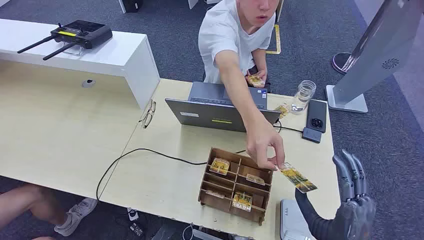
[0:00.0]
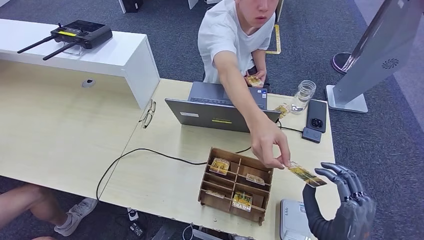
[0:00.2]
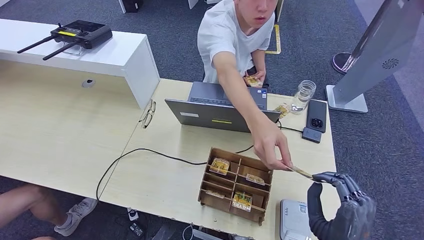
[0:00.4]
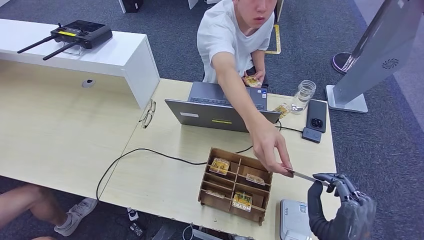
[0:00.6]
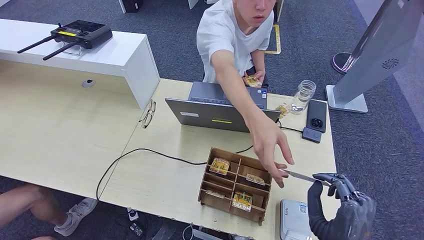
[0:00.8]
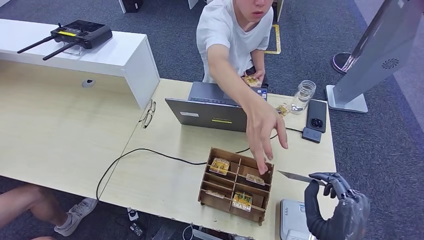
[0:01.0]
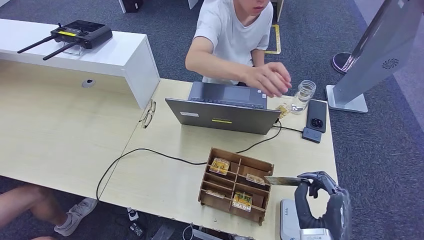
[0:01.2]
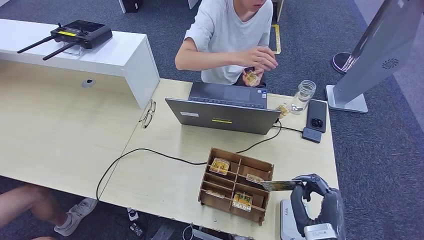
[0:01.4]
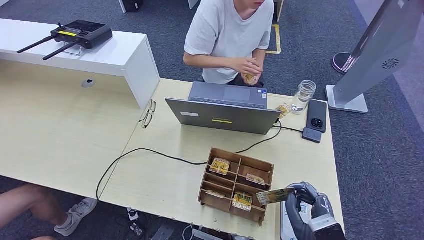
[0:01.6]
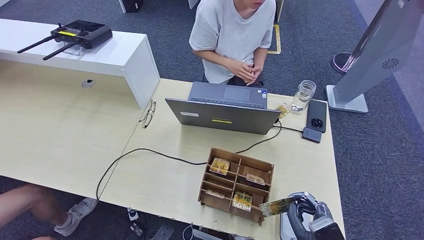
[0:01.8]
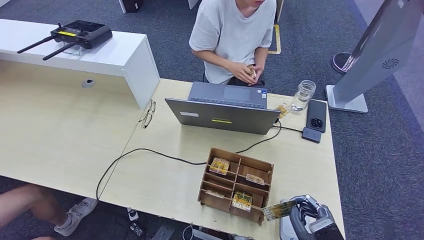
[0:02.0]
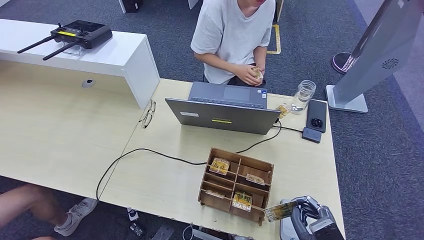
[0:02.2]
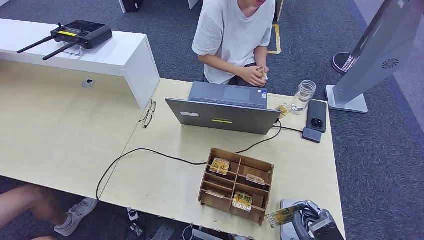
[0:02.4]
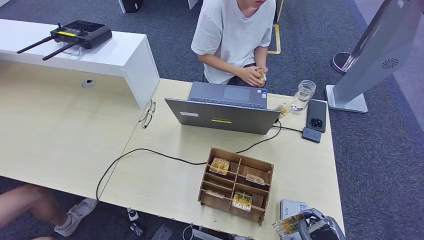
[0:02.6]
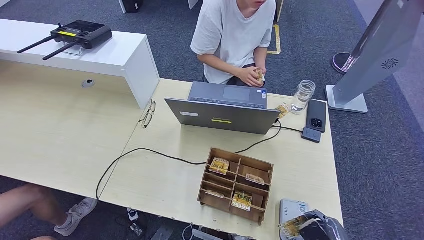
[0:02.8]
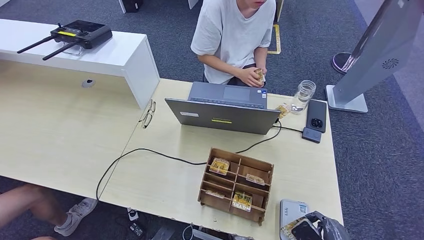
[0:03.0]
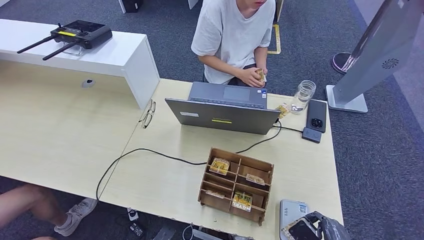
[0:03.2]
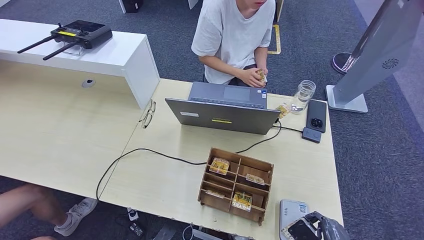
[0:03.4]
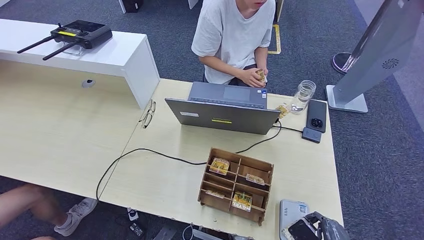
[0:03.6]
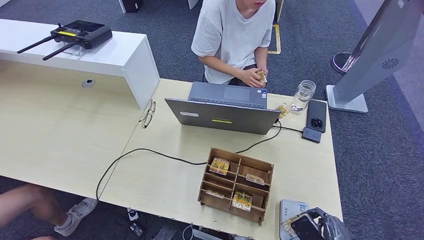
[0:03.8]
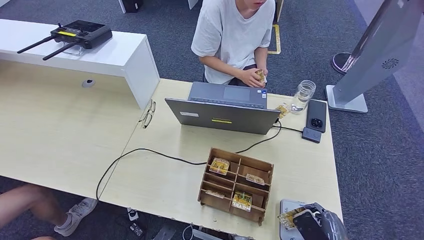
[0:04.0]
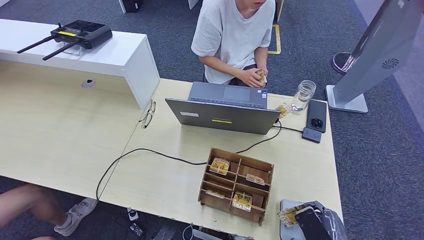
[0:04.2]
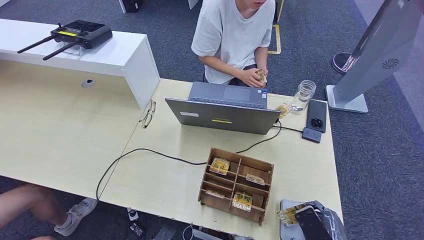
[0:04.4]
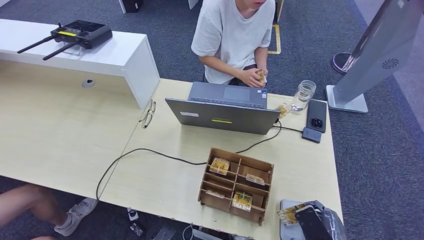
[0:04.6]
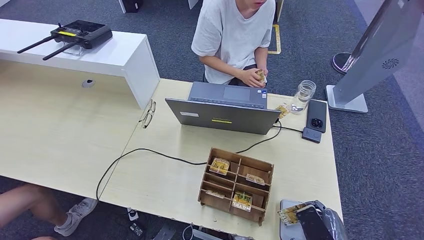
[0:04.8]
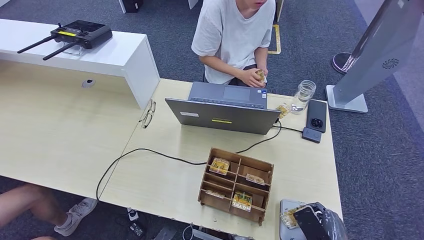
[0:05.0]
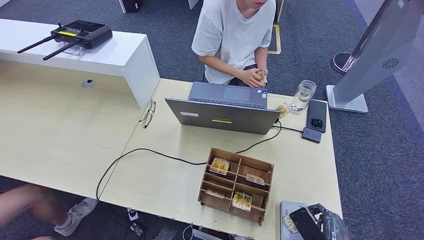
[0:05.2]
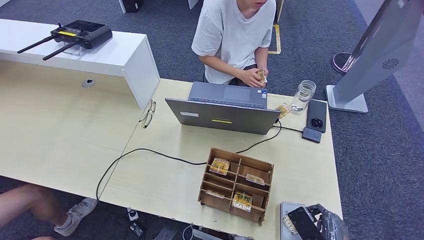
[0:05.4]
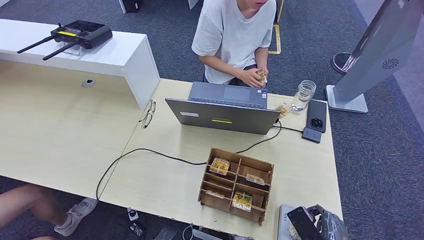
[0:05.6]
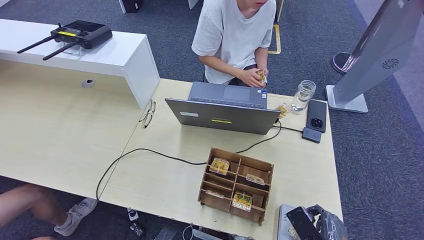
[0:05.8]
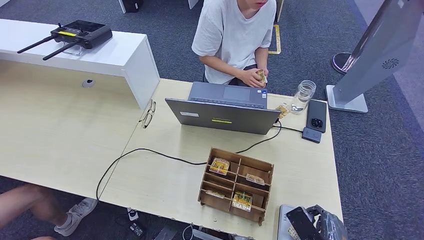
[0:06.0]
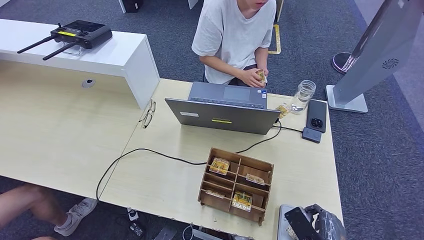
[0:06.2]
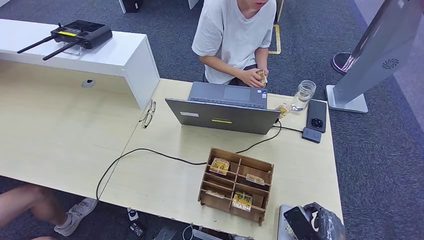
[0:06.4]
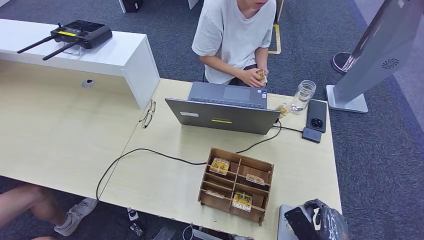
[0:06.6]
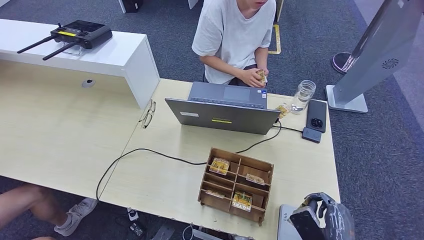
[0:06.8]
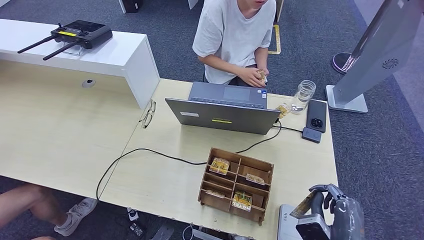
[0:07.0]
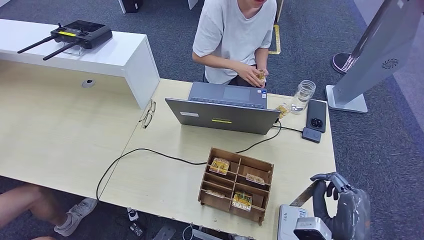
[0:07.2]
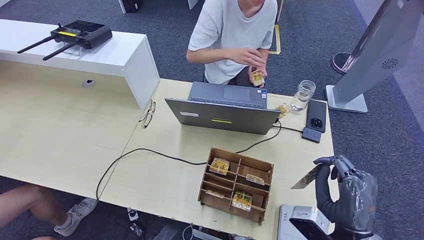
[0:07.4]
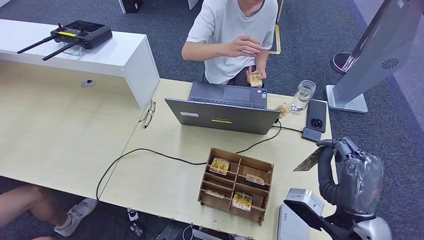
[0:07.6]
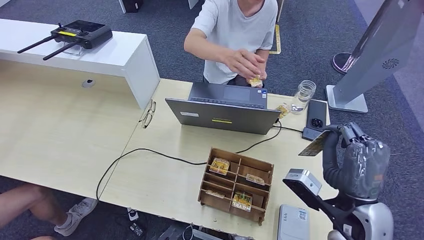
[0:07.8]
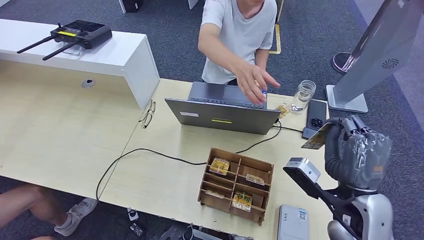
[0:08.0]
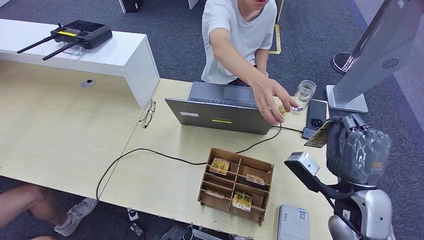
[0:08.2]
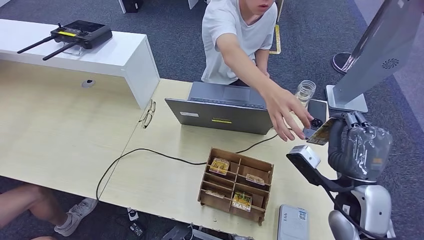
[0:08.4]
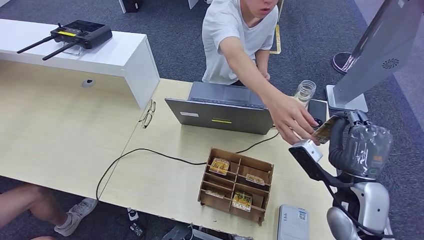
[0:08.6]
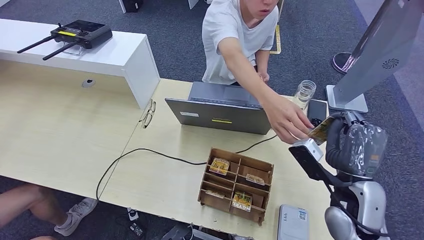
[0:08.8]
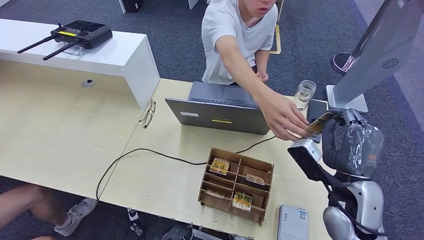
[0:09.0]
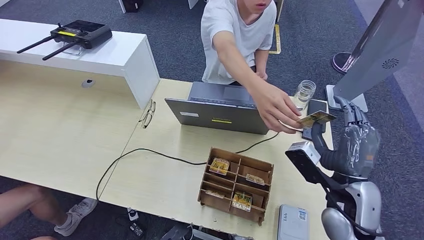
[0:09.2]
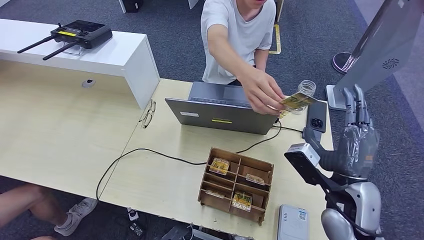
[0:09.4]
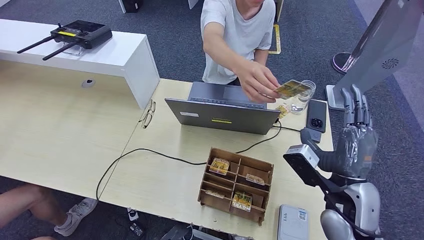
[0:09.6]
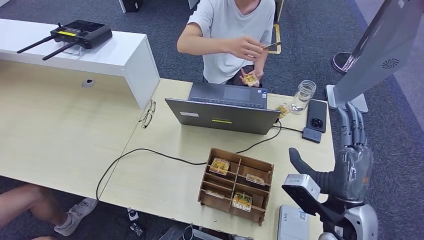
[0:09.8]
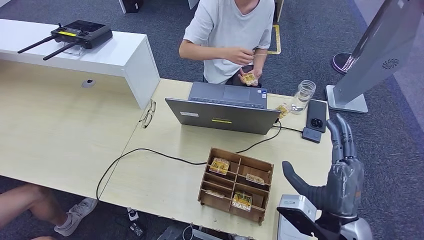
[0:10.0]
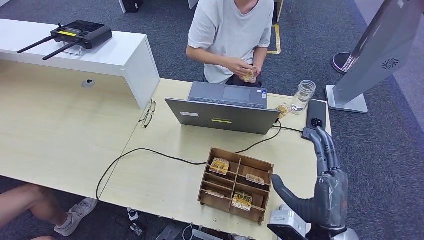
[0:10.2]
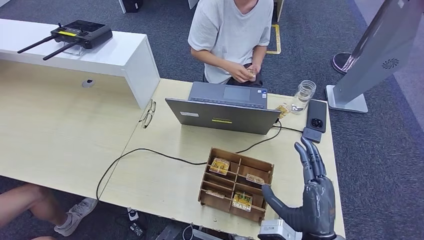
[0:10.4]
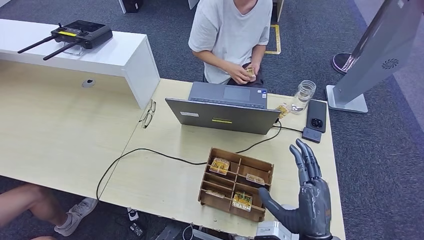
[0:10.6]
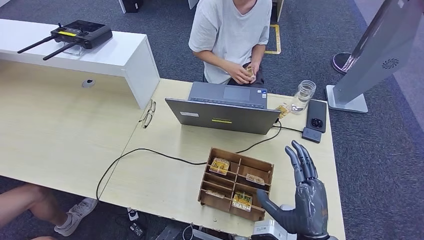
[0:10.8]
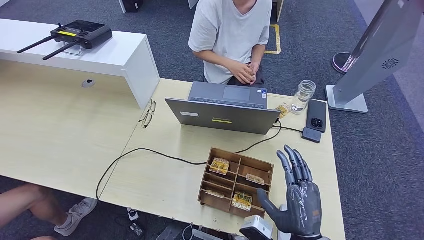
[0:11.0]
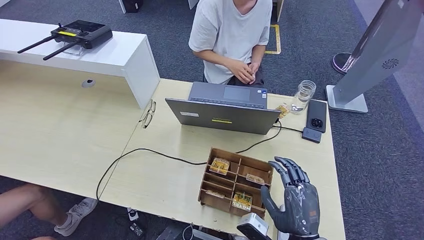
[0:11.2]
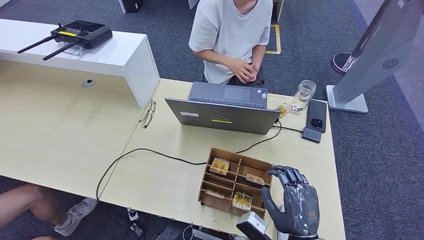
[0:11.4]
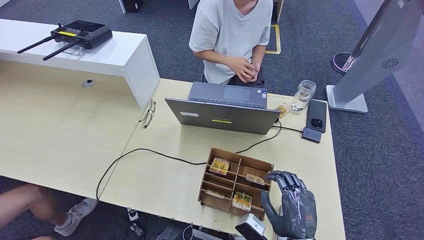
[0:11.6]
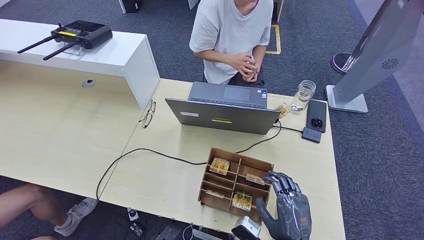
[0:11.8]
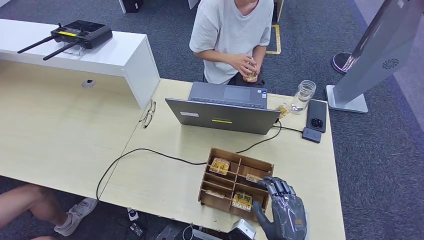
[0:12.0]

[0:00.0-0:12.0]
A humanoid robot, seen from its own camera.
Step, 0:00.0 to 0:01.4: Take the ID card from the person's hand.
Step, 0:01.6 to 0:07.4: Place the ID card on the card reader.
Step, 0:07.6 to 0:09.8: Hand the ID card to the person.
0:01.6 to 0:03.0: The right hand travels to the right by about 5 cm.
0:03.0 to 0:06.0: There are only small adjustments of the hands.
0:06.0 to 0:07.6: The right hand moves upward and forward, approximately 15 cm.
0:07.6 to 0:09.0: The right hand moves forward, approximately 5 cm.
0:09.0 to 0:10.4: The right hand moves backward and to the left, approximately 15 cm.
0:10.4 to 0:12.0: The right hand is displaced downward by about 5 cm.

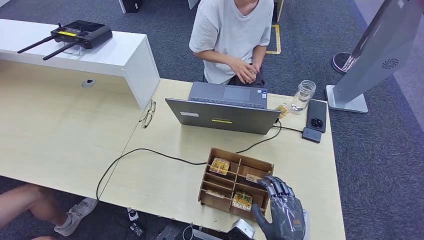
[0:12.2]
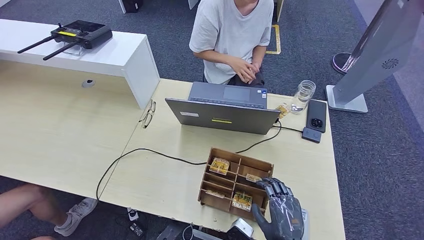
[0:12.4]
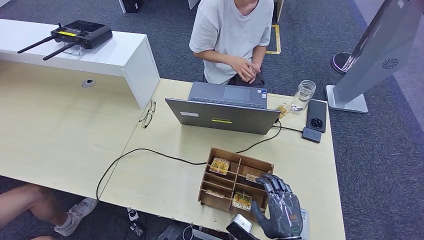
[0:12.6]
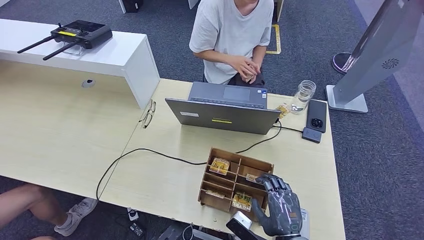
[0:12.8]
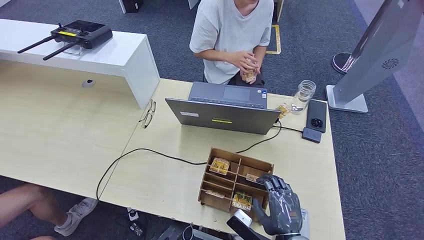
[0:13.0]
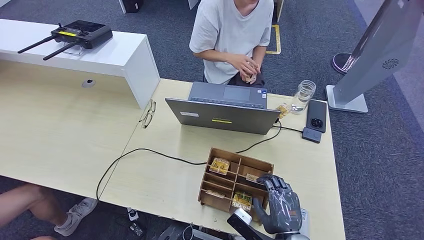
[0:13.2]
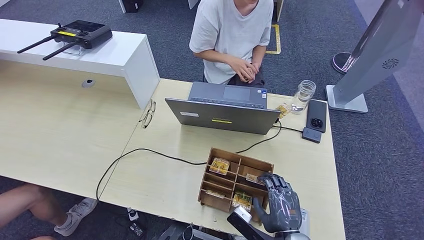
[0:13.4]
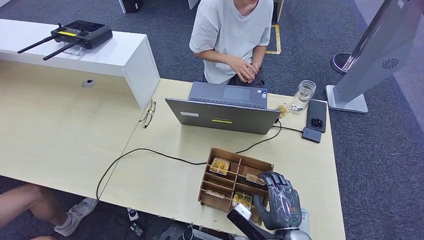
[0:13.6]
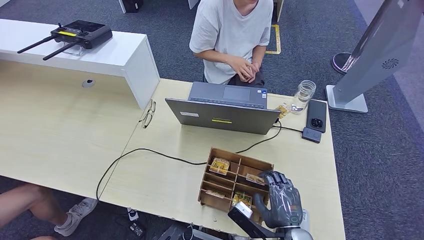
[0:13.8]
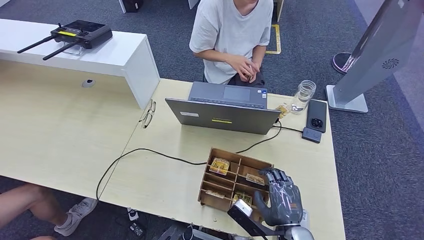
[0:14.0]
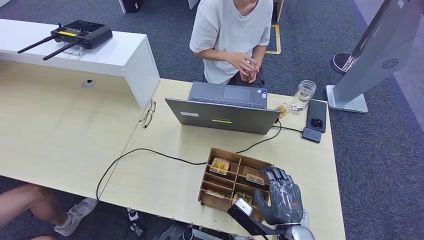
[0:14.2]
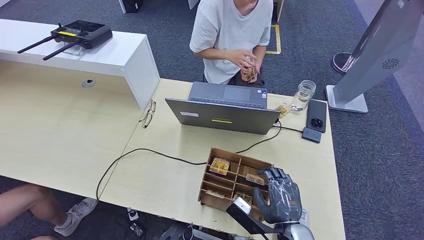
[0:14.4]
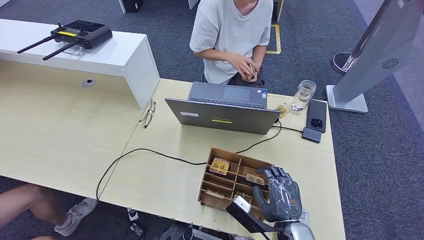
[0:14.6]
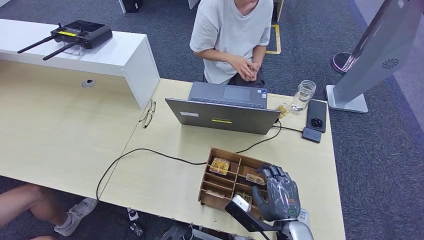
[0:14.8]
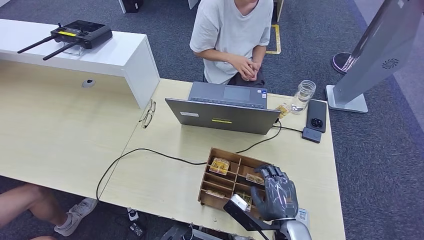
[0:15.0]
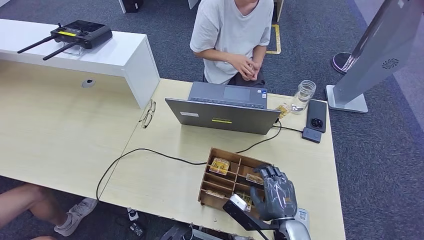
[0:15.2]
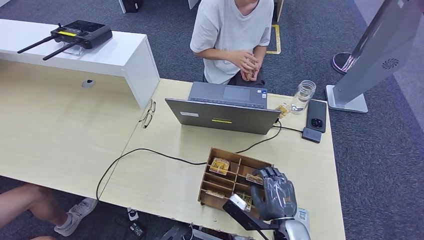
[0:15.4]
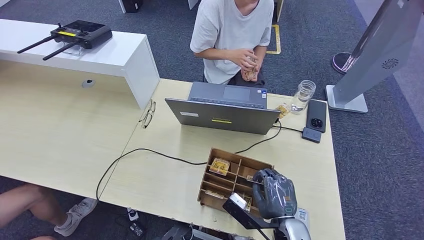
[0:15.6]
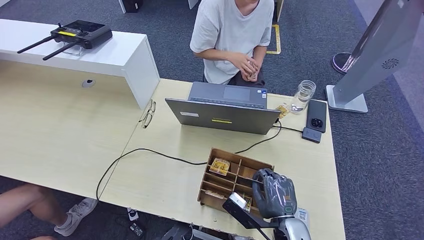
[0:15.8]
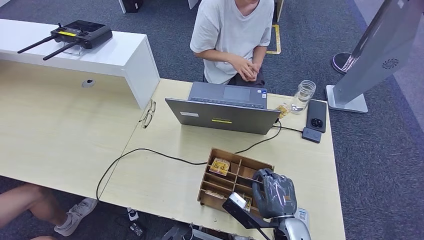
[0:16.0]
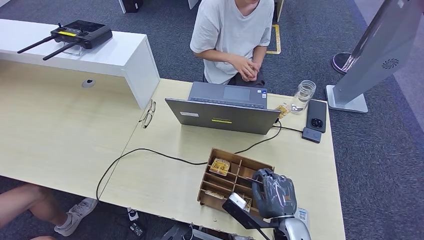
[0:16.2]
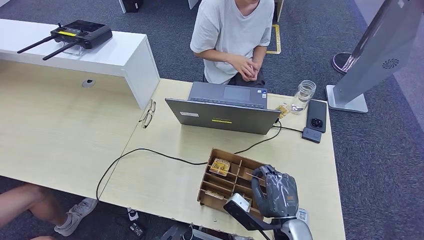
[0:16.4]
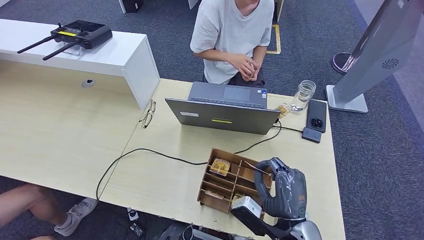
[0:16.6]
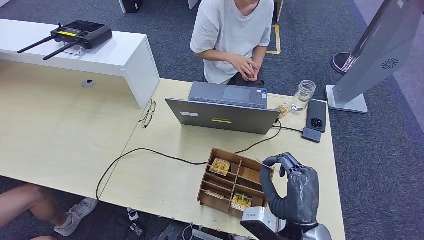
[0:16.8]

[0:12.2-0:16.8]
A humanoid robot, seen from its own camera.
0:12.2 to 0:15.2: The hands move only a little.
0:15.2 to 0:16.8: The right hand goes some 10 cm upward.
